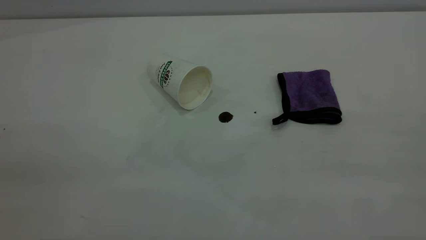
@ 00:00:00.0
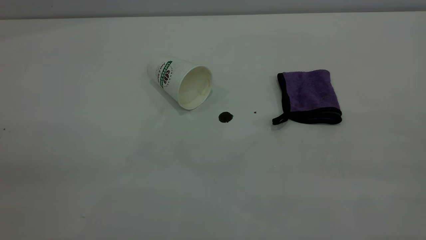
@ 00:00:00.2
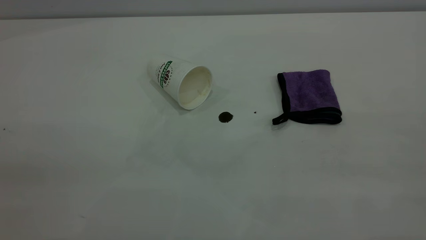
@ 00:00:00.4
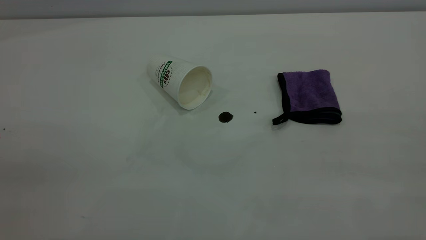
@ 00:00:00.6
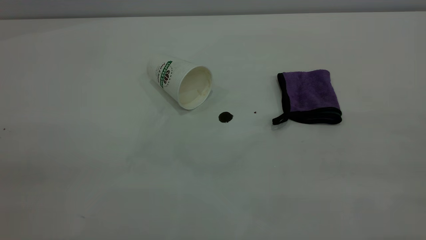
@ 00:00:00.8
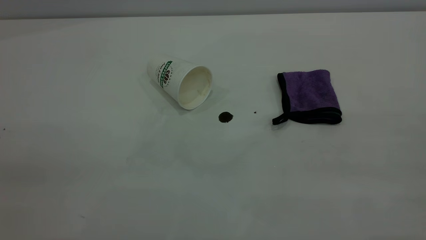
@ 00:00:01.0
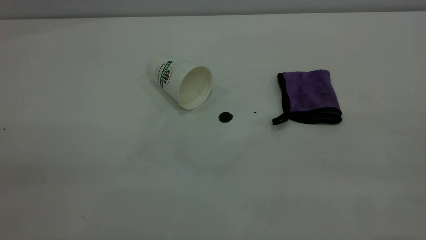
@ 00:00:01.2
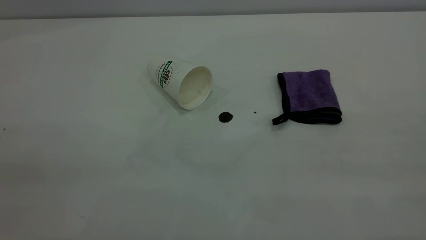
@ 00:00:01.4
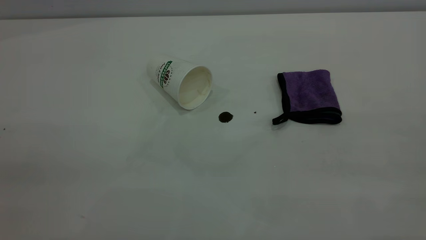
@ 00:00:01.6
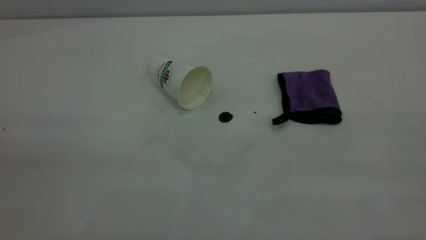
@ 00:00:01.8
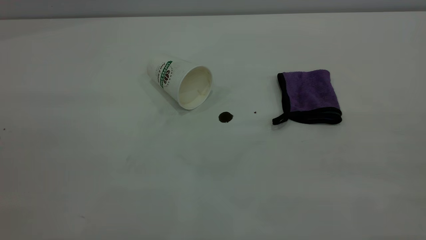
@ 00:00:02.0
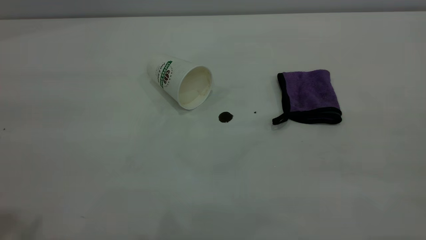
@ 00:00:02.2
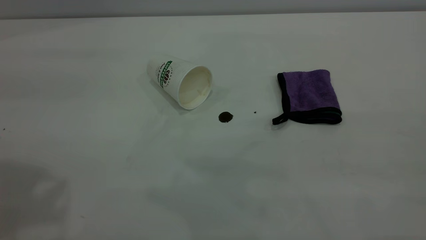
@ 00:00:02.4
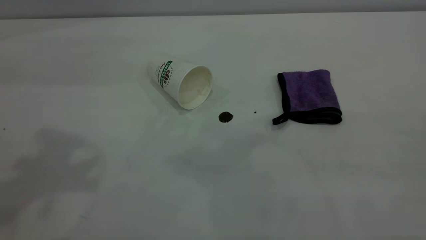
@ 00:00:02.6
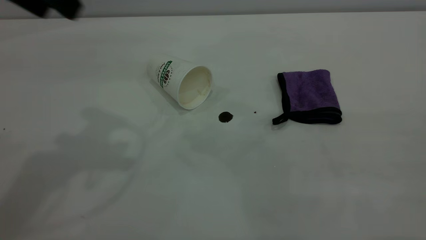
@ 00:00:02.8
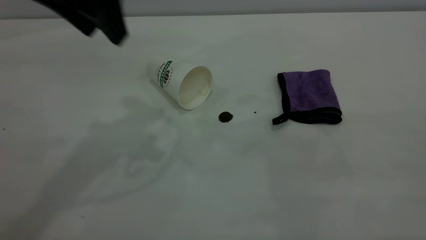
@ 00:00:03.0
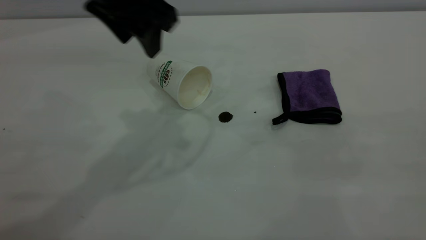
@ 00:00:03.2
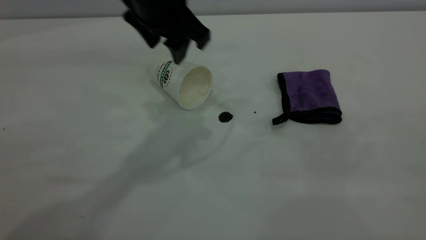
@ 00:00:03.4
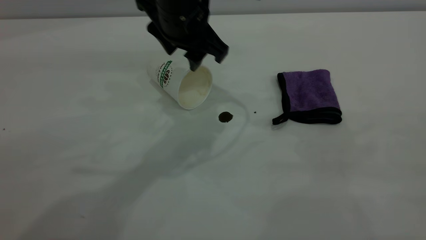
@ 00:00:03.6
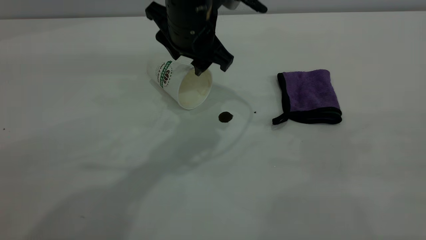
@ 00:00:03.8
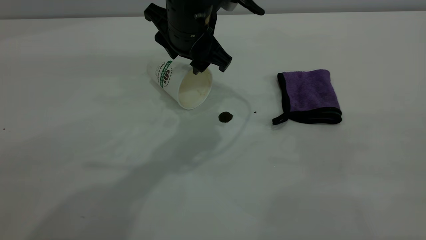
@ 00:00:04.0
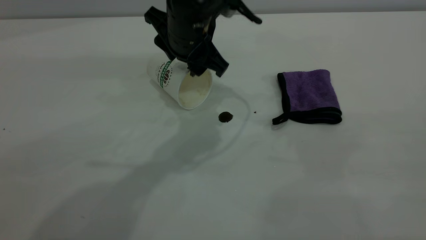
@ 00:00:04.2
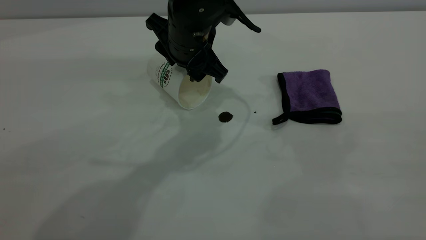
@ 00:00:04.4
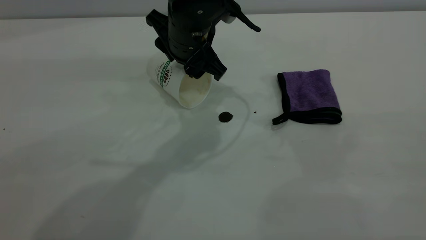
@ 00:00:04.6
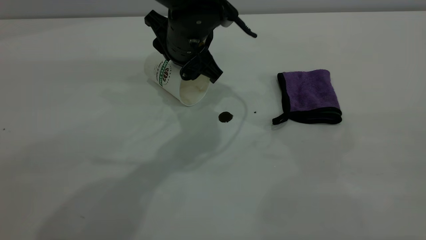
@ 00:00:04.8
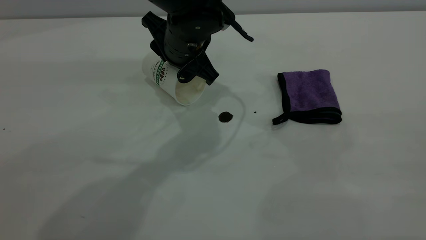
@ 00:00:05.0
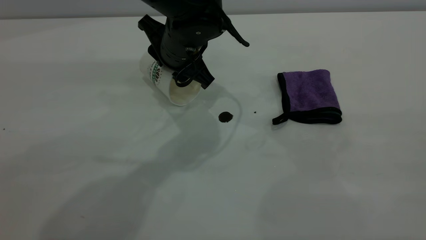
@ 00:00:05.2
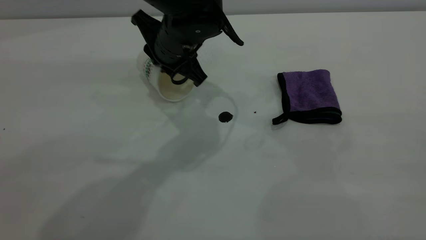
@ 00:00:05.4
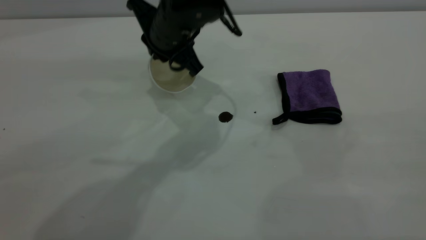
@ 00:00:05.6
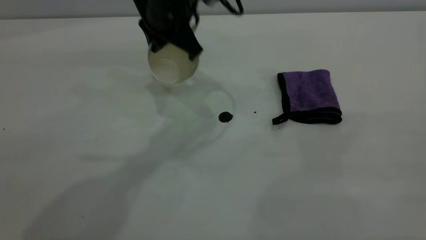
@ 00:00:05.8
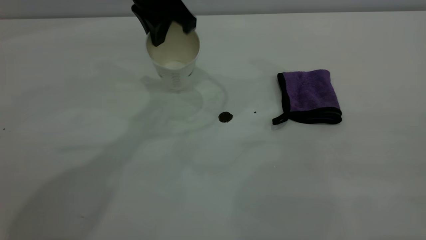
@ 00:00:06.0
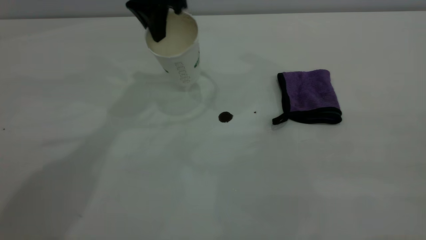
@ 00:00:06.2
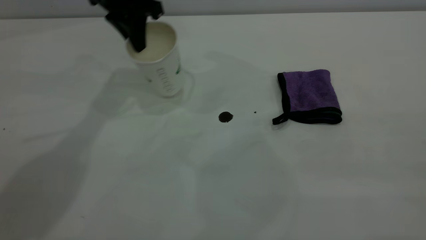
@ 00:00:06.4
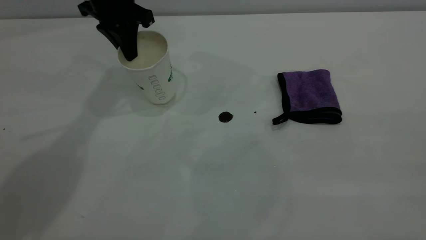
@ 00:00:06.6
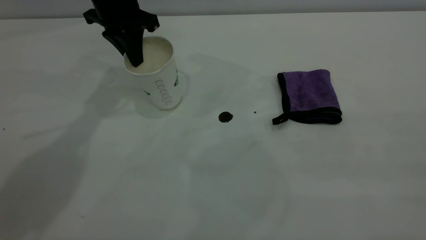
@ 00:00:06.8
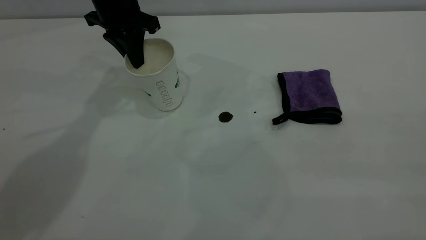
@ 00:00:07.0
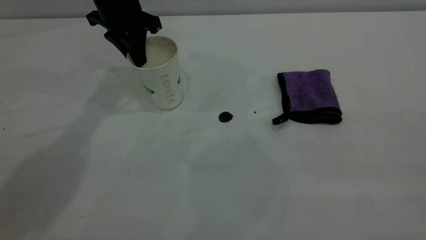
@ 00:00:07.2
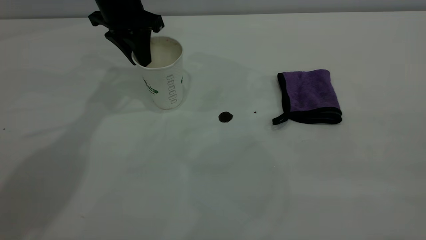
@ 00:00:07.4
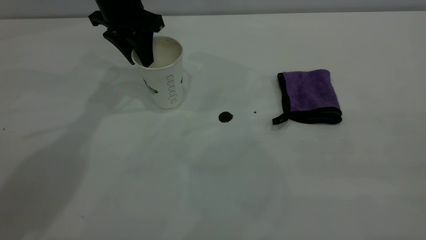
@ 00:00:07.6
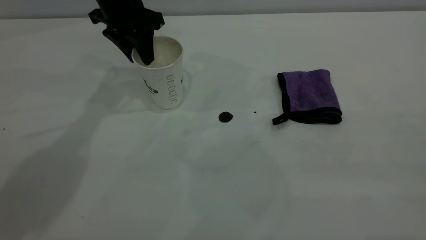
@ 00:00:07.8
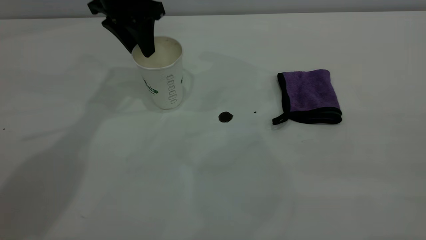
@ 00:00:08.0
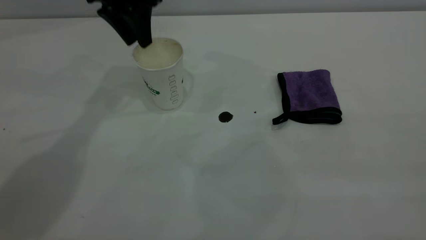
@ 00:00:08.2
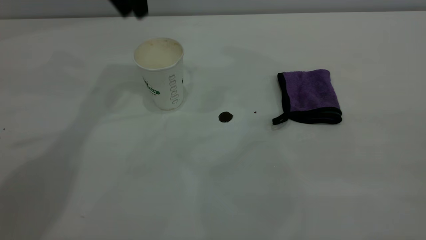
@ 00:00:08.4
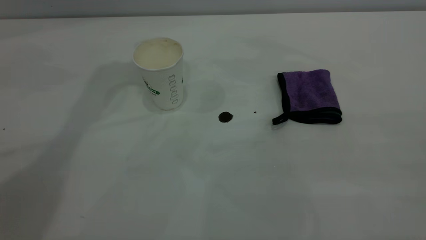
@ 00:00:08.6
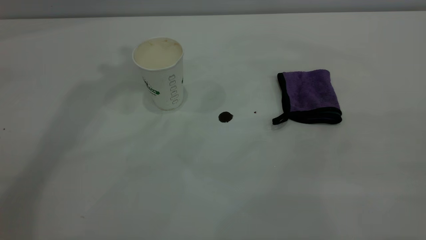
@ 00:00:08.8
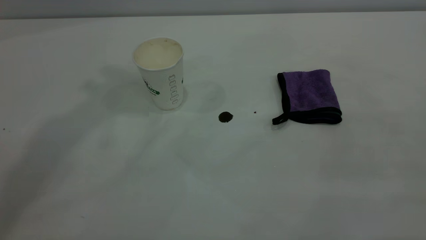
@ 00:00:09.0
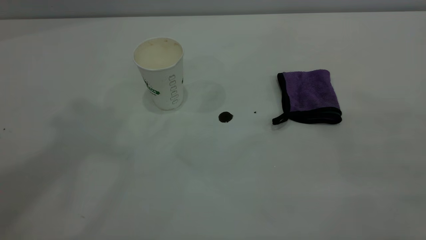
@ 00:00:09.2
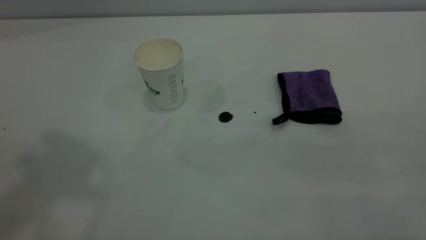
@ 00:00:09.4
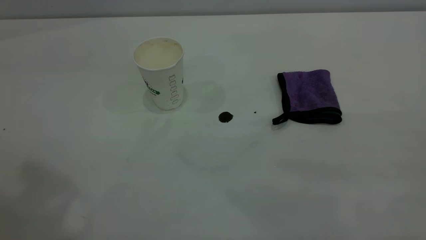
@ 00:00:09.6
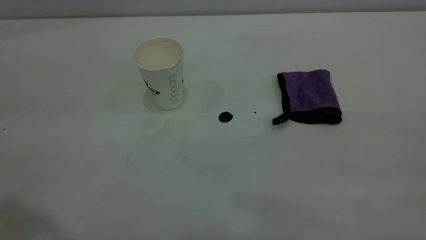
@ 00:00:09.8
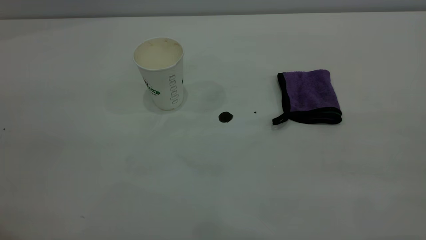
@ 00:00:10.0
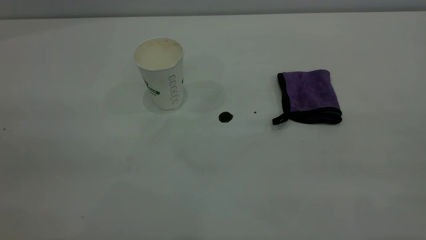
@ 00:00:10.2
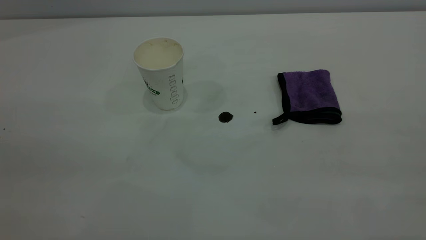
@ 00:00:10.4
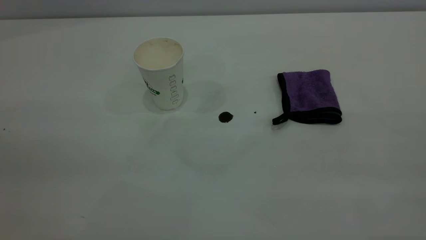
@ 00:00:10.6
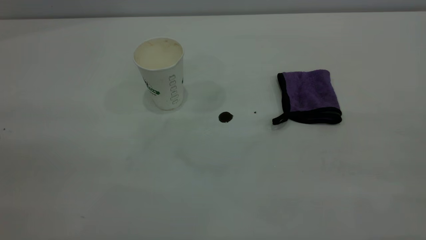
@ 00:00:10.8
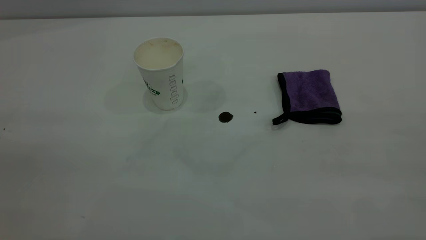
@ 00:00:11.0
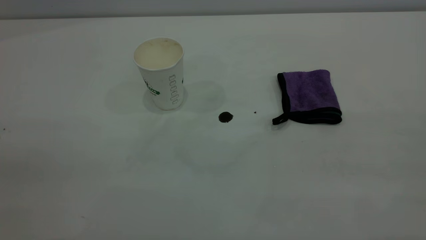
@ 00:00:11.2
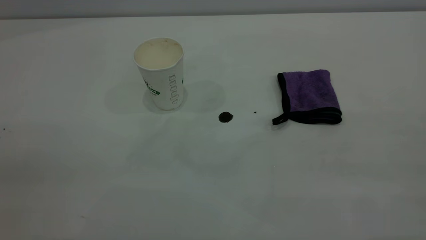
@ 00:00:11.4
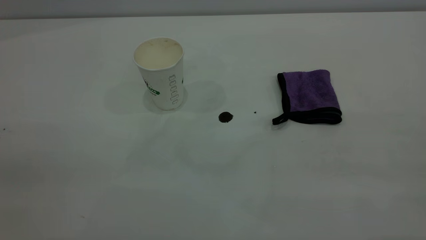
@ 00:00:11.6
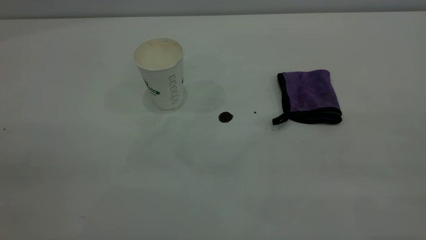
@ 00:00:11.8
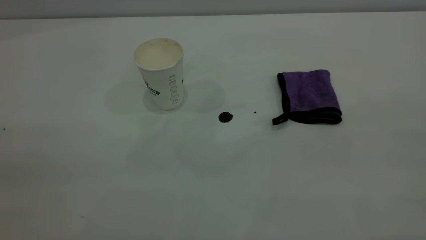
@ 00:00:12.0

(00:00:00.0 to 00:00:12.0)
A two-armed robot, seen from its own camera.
Task of the whole recording: the left gripper pick up the fallen cup and place it upright, the right gripper grasp the purple rag and wipe the coffee stain on the table, the right gripper put the purple rag back in its original position.
Step, 00:00:00.0 - 00:00:08.2: Stand the paper cup upright.
00:00:00.0 - 00:00:01.6: Both grippers stay put.
00:00:01.6 - 00:00:03.0: The left gripper heads forward and to the right, covering some 35 cm, and opens up.
00:00:03.0 - 00:00:04.4: The left gripper is displaced downward and to the right by some 20 cm.
00:00:04.4 - 00:00:06.0: The left gripper travels upward, forward and to the left by about 10 cm, and closes.
00:00:06.0 - 00:00:07.6: The left gripper moves to the left, approximately 10 cm, and opens.
00:00:07.6 - 00:00:09.0: The left gripper shifts roughly 40 cm upward.

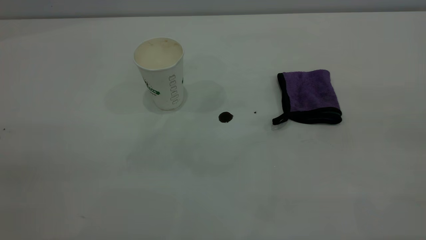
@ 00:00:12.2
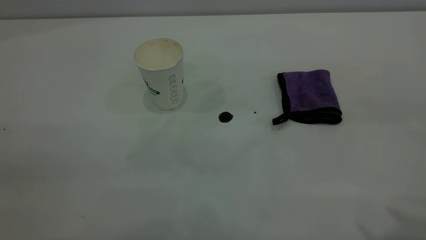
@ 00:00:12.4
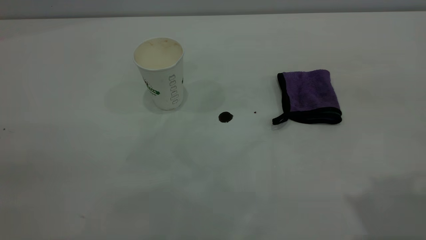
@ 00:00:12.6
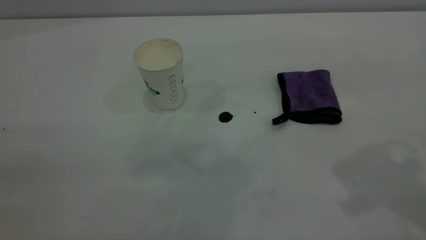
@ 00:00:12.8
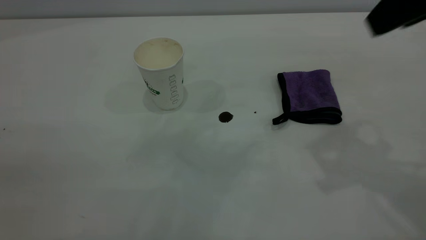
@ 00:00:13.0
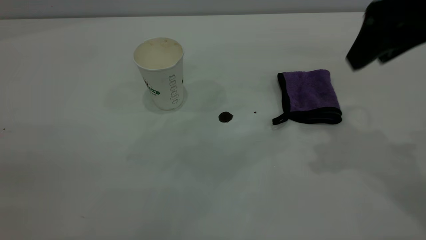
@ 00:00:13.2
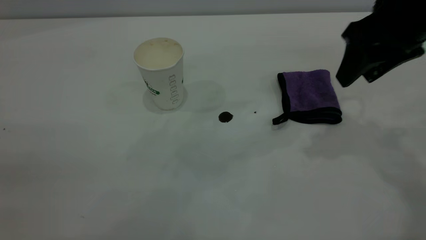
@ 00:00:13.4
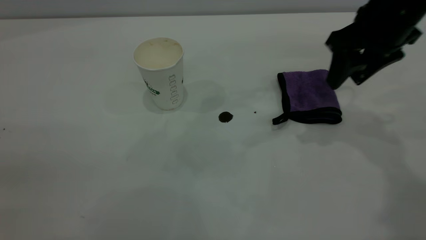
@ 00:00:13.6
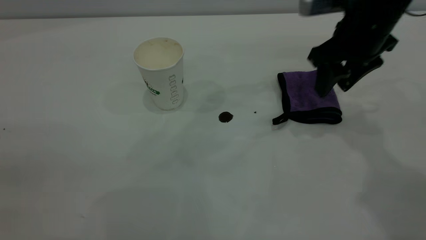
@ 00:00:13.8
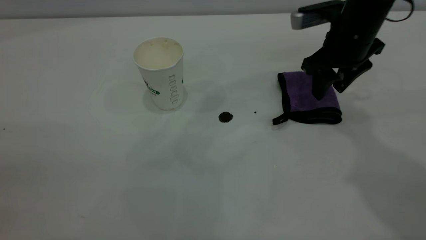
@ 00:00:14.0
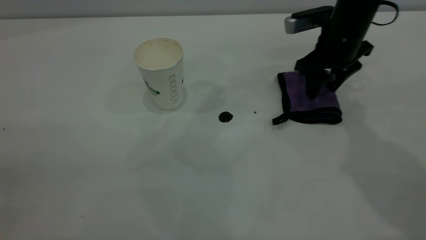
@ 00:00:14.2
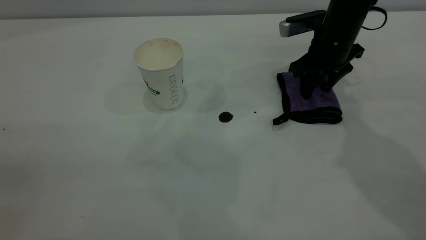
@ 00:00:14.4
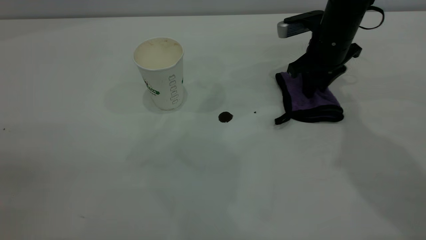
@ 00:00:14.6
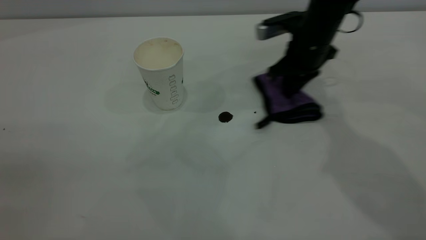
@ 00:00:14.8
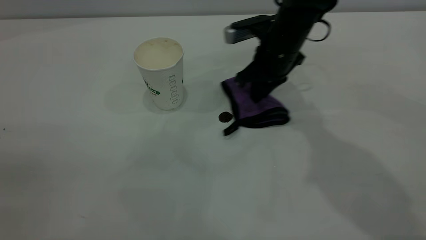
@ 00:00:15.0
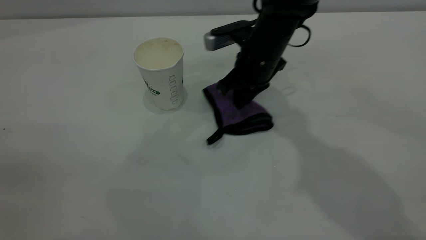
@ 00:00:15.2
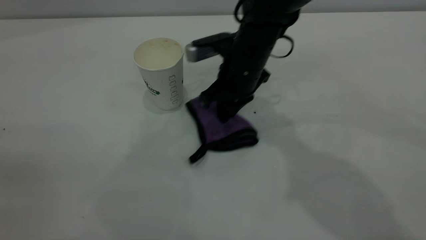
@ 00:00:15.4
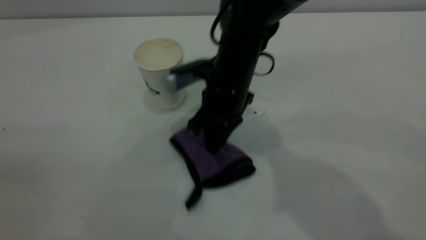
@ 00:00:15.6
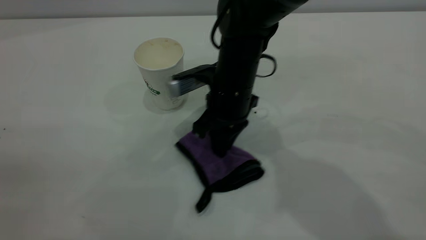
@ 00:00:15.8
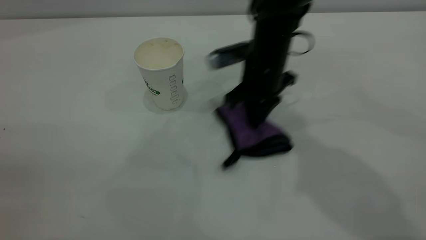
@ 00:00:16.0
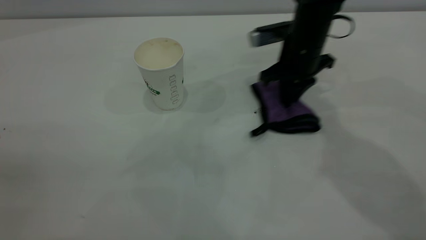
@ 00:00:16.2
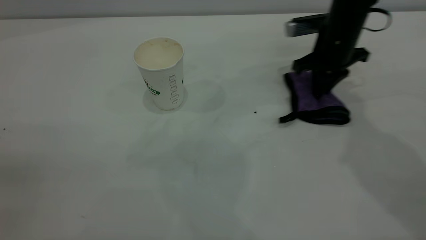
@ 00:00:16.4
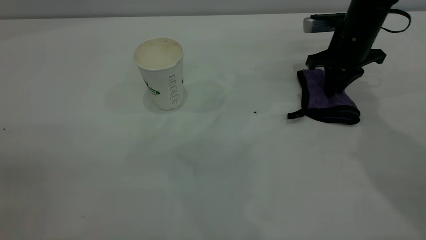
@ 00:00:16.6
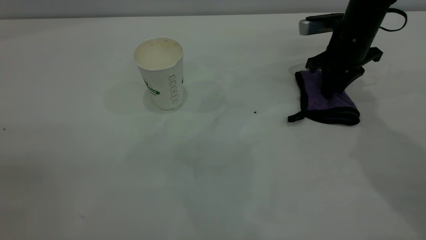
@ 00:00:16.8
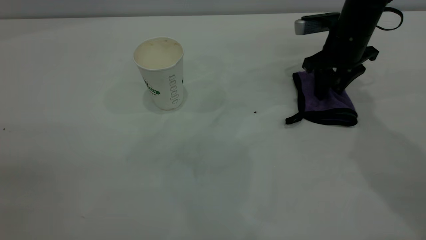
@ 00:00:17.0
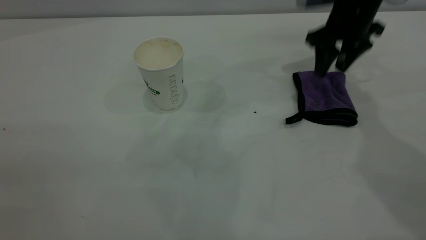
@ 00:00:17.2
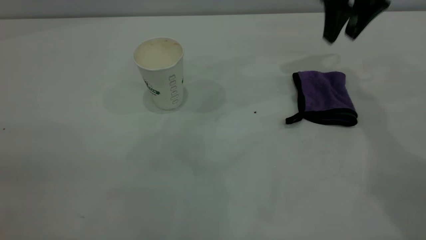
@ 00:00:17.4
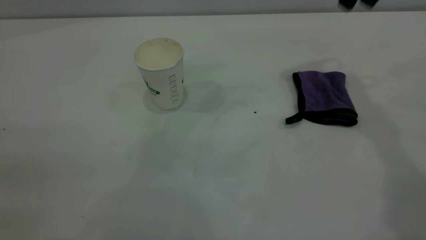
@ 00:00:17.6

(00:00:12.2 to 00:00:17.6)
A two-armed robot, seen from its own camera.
Task of the whole recording: the left gripper pick up the fallen cup and place it upright, the right gripper grasp the purple rag and wipe the coffee stain on the table, the right gripper put the purple rag back in its original position.
Step, 00:00:12.2 - 00:00:17.2: Wipe the stains off the table with a rag.
00:00:12.2 - 00:00:13.6: The right gripper travels forward and downward by roughly 35 cm.
00:00:13.6 - 00:00:15.0: The right gripper goes about 15 cm to the left, downward and forward, and closes its fingers.
00:00:15.0 - 00:00:16.2: The right gripper moves to the right, about 5 cm.
00:00:16.2 - 00:00:17.6: The right gripper is displaced upward by approximately 25 cm, and opens.
